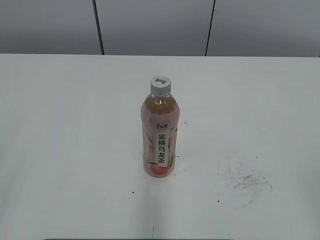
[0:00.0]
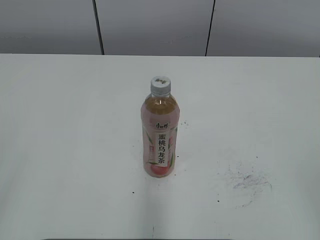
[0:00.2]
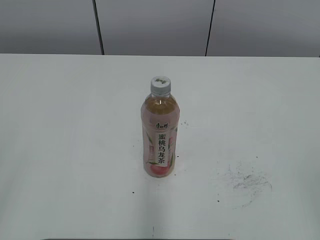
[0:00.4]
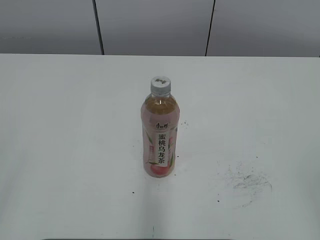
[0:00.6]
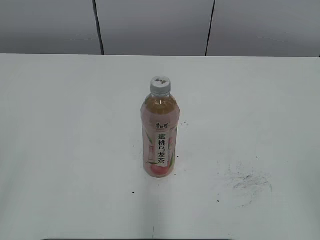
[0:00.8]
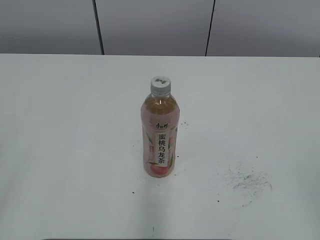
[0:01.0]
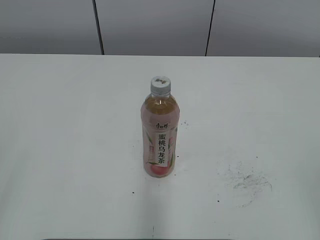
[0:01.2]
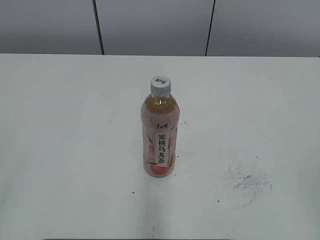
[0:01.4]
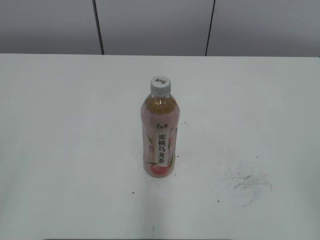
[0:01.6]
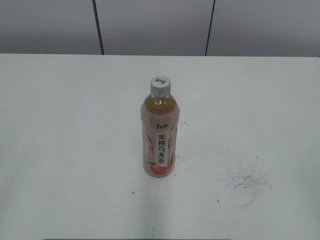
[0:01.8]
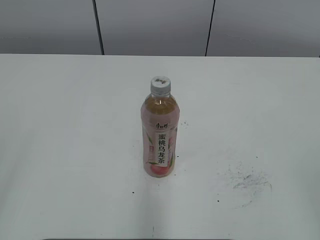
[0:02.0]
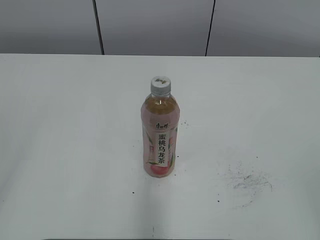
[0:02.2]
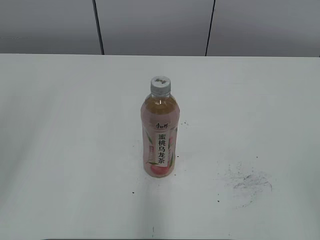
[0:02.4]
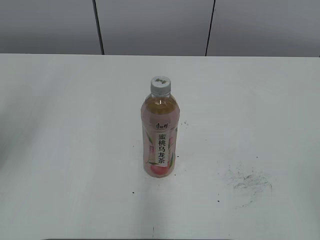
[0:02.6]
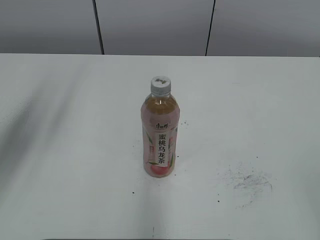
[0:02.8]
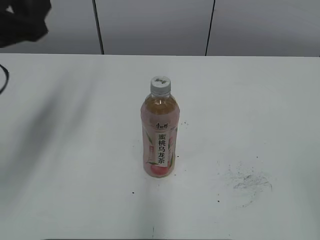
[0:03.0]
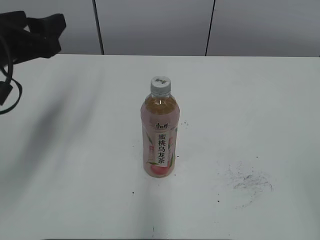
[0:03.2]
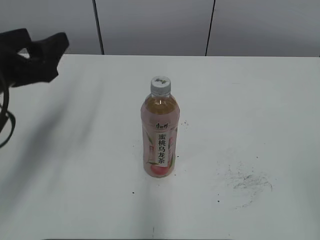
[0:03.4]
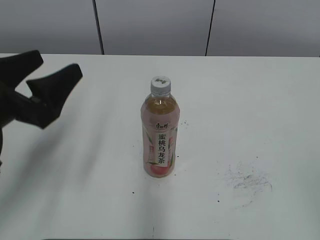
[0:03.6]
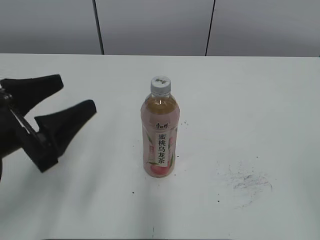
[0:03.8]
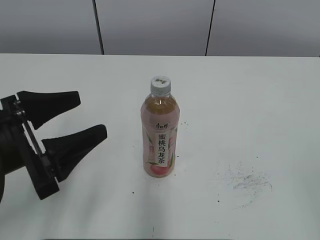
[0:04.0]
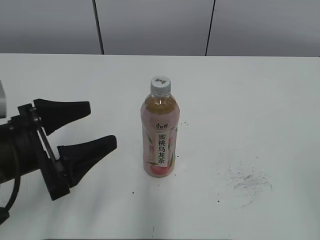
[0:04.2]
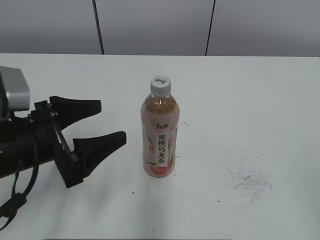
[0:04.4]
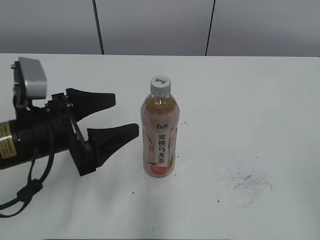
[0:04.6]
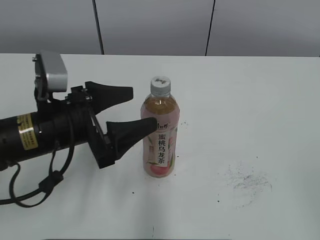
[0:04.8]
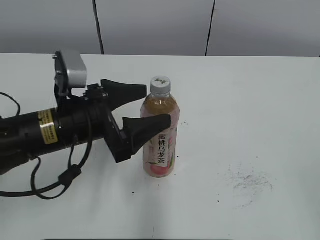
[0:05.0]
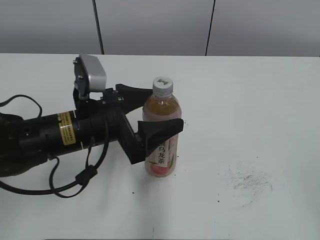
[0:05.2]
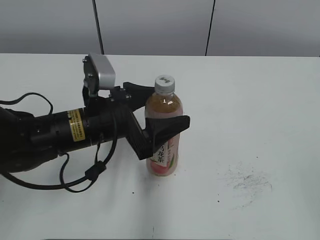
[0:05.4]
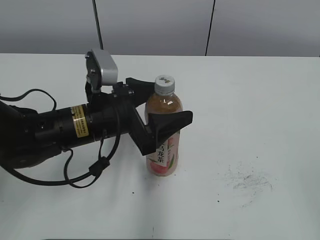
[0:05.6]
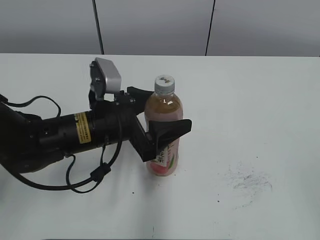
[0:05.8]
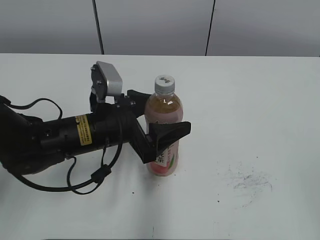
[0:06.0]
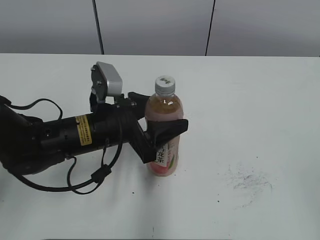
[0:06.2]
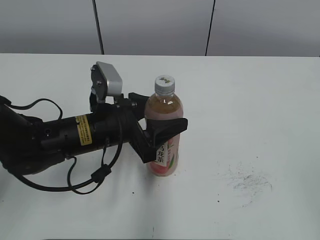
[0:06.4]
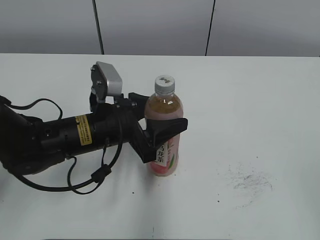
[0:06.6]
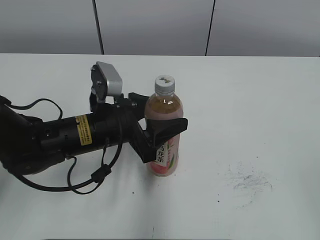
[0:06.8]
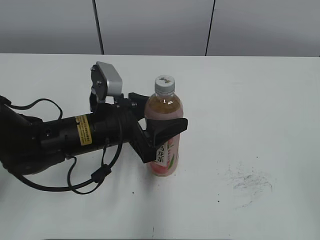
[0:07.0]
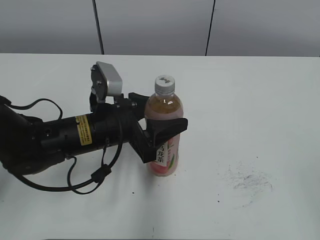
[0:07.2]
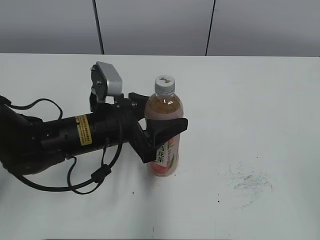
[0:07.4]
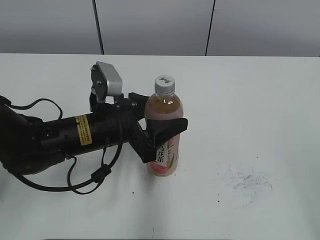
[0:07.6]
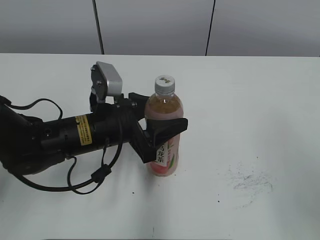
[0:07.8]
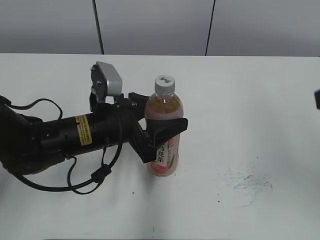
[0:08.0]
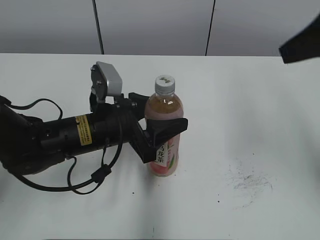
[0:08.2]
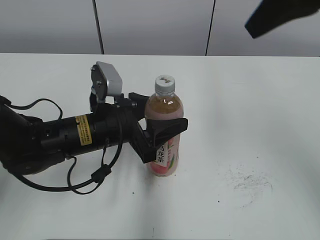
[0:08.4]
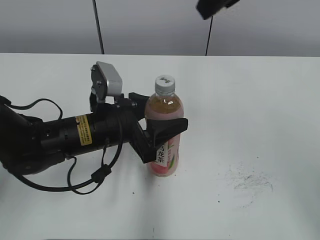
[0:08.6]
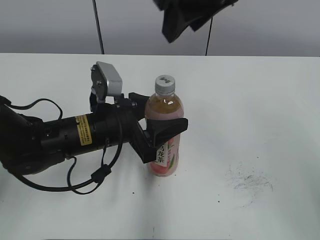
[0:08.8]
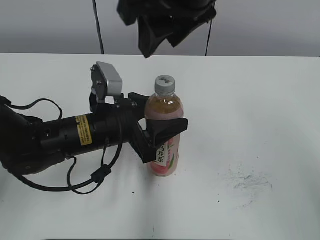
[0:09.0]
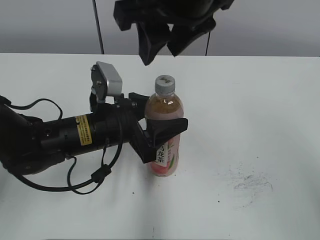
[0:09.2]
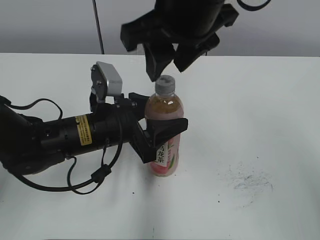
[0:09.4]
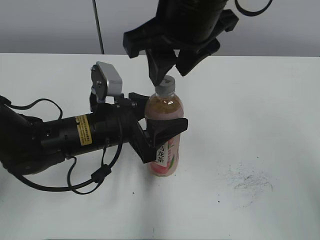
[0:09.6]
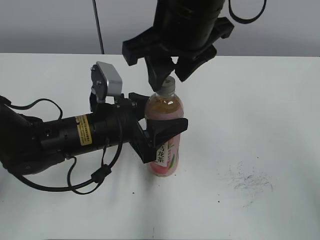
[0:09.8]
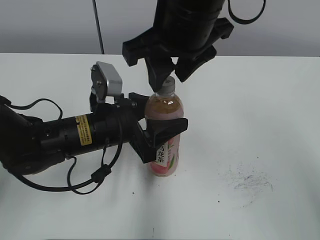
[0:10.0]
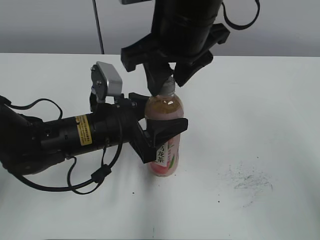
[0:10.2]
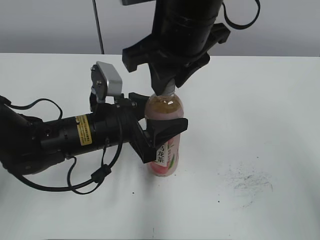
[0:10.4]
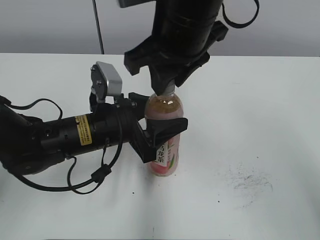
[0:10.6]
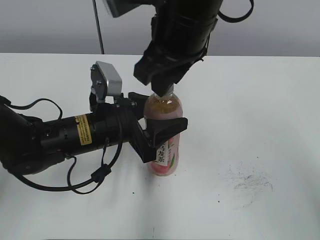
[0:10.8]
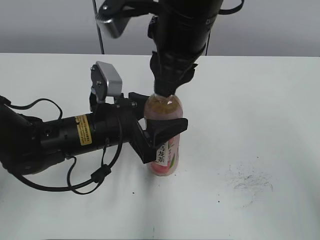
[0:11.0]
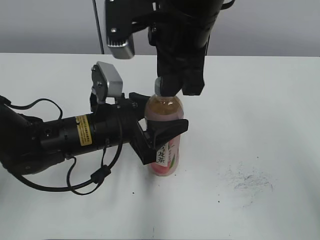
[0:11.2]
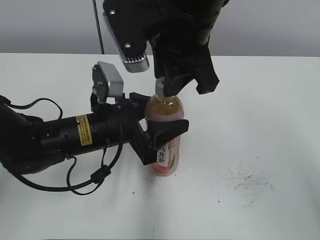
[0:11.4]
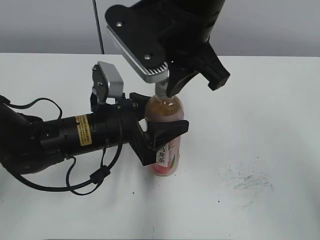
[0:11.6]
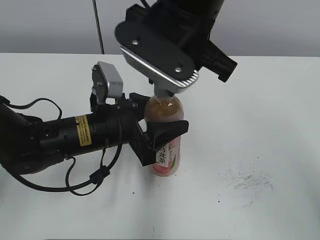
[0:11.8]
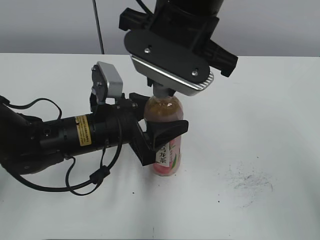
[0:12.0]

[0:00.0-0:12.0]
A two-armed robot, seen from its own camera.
Step, 0:00.0 to 0:06.6: Grab the Peach Oolong Tea with the left hand.
0:01.6 to 0:03.0: The left gripper travels forward by some 25 cm.
0:03.0 to 0:04.4: The left gripper travels downward, backward and to the right by some 15 cm, and opens up.
0:04.4 to 0:06.0: The left gripper moves to the right and forward, roughly 10 cm.
0:06.0 to 0:07.6: The left gripper closes up.
0:07.6 to 0:09.0: The right gripper moves forward and to the left, about 35 cm.
0:09.0 to 0:10.4: The right gripper is displaced downward by approximately 5 cm, and closes.

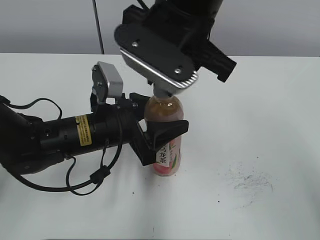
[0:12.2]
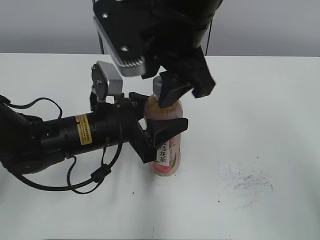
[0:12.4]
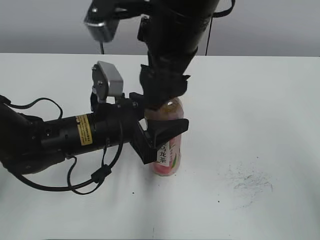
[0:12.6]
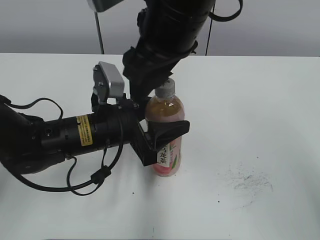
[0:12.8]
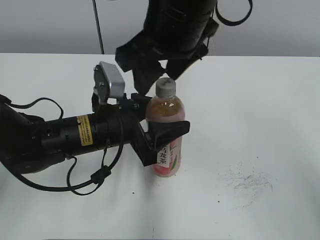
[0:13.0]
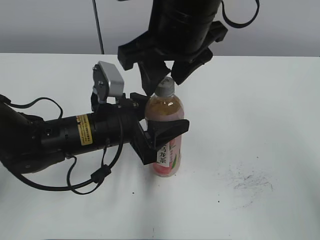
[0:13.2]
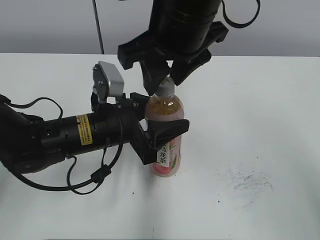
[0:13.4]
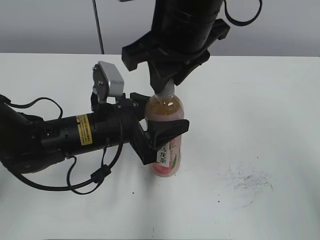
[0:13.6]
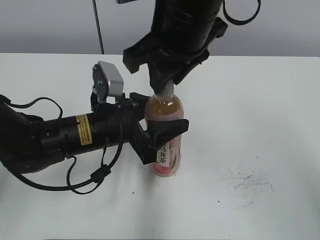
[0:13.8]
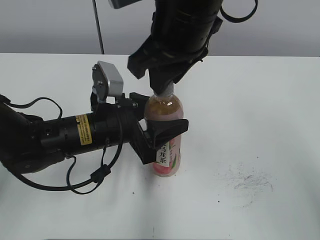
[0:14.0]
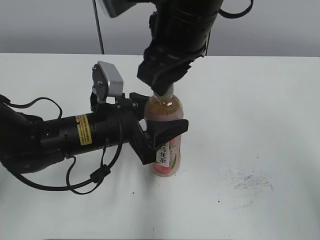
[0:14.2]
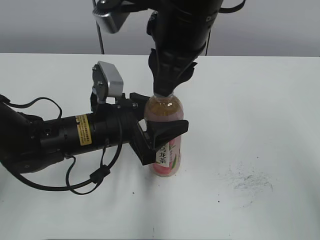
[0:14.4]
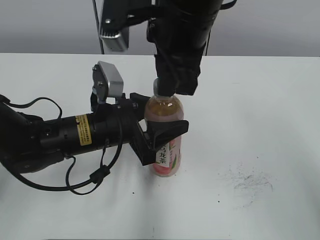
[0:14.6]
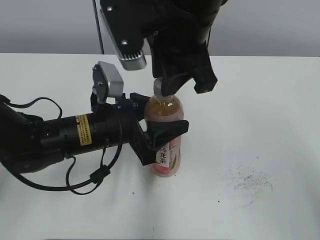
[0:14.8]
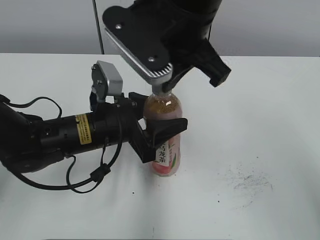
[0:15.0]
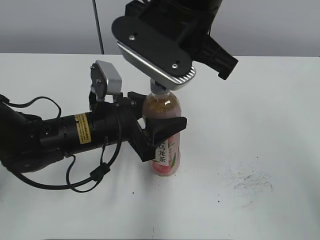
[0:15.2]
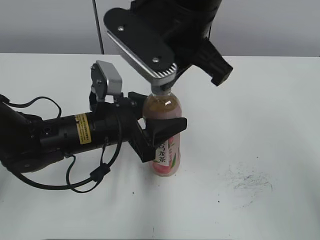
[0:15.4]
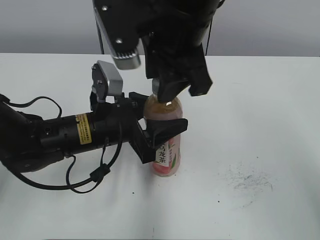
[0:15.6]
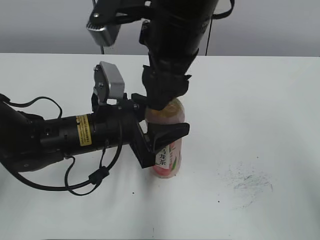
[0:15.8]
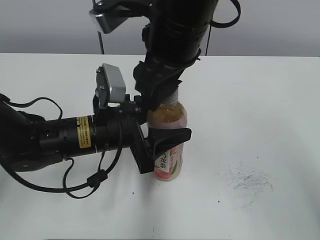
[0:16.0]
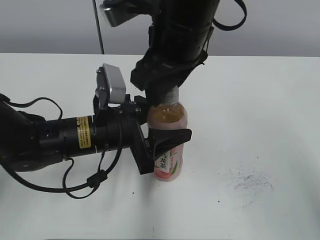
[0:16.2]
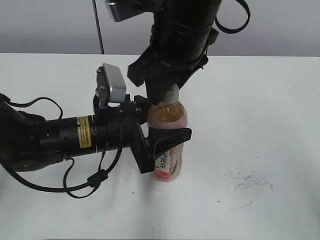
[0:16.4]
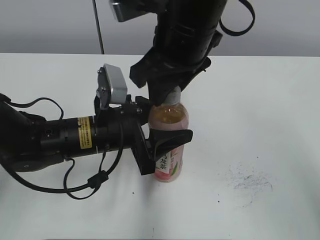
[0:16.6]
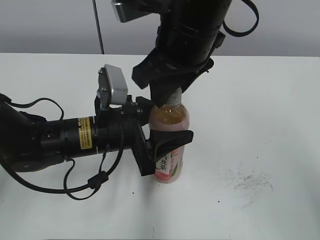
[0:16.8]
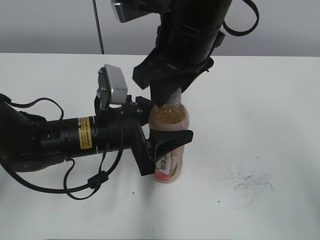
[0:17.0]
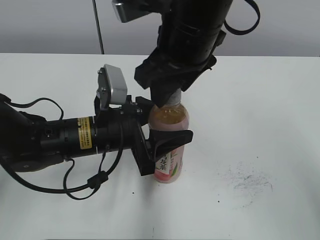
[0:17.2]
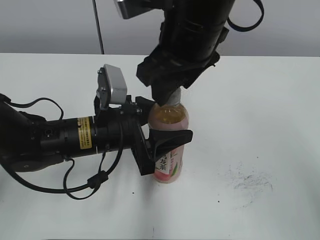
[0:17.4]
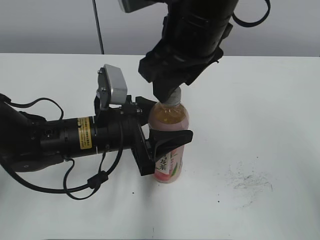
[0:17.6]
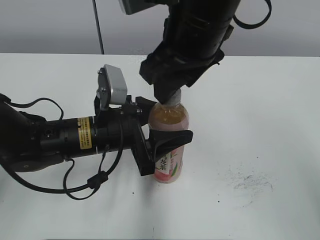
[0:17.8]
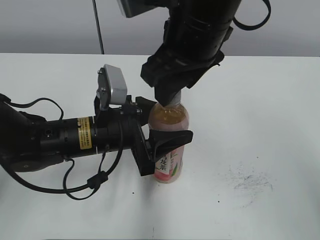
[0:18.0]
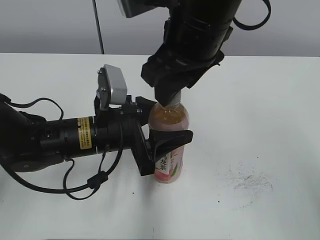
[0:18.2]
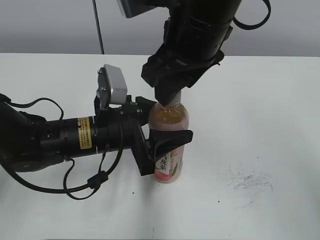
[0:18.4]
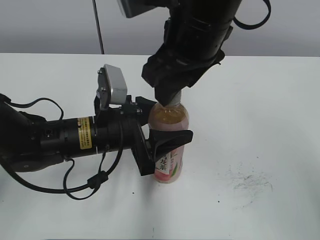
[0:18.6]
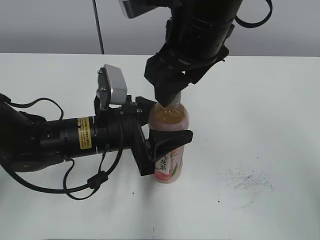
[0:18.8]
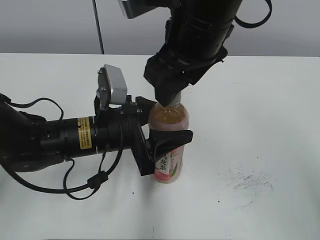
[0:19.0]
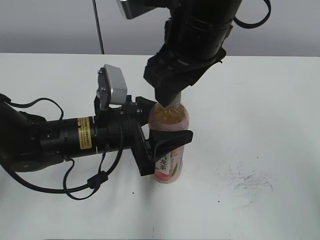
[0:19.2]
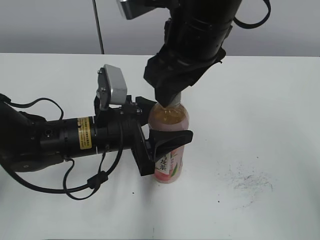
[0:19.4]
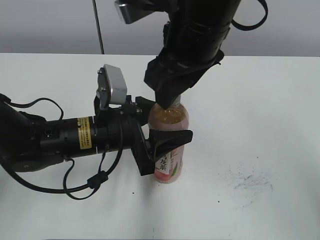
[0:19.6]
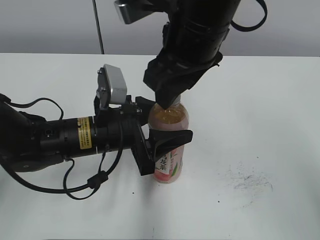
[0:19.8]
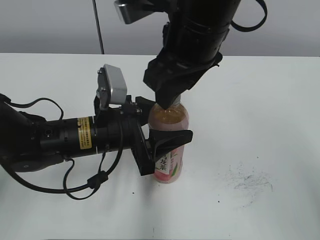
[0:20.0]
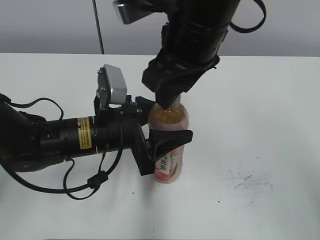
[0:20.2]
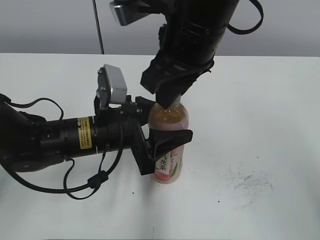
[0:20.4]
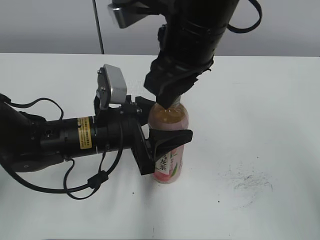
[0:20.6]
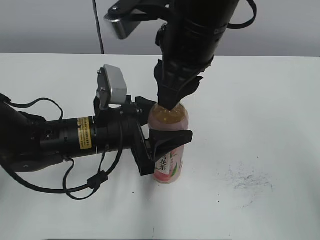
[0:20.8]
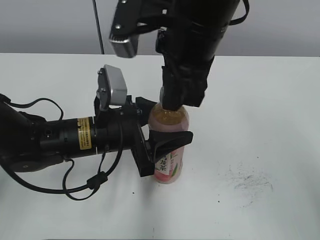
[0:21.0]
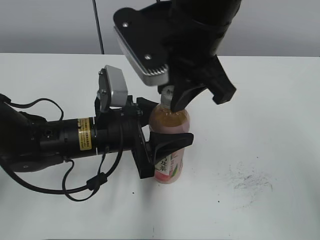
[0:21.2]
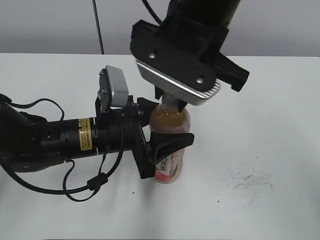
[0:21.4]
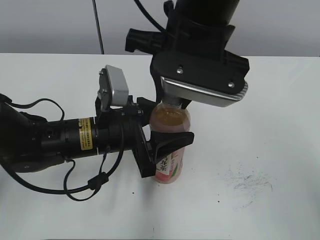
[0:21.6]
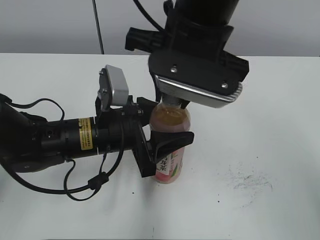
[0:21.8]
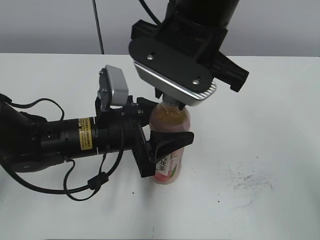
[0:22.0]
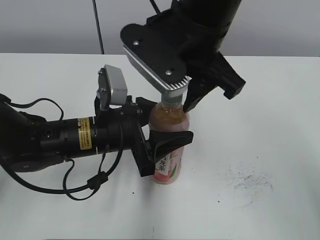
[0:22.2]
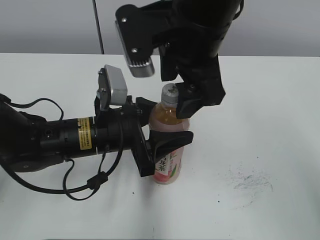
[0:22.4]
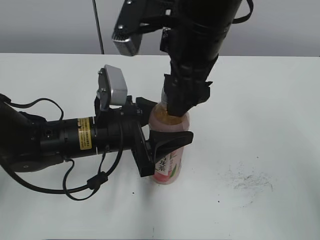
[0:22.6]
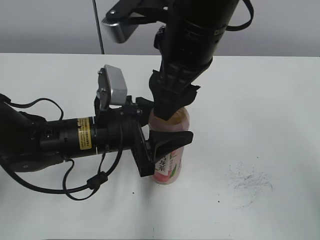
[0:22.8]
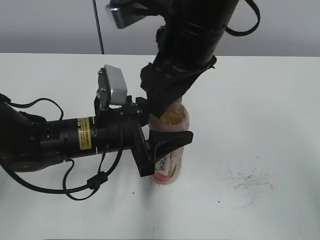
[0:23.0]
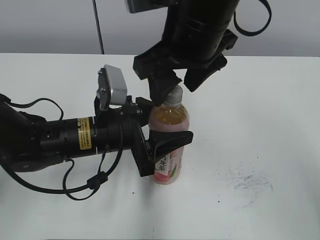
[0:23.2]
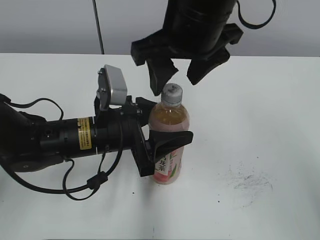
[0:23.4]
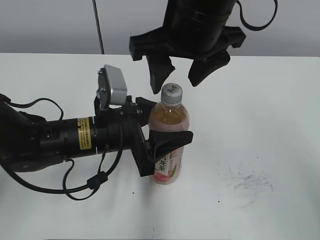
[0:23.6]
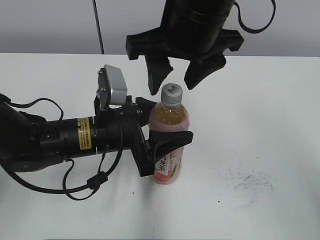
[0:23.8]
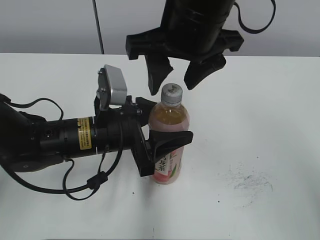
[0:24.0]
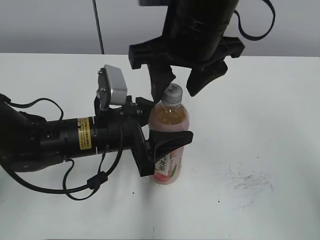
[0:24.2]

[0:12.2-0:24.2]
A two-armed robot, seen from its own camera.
0:12.2 to 0:13.8: The right gripper opens, then closes once more.
0:15.2 to 0:16.6: The right gripper opens up.
0:16.6 to 0:18.2: There are only small adjustments of the grippers.
0:18.2 to 0:19.8: Both grippers stay about where they are.
0:19.8 to 0:21.2: The right gripper closes up.
0:21.2 to 0:22.6: The right gripper opens up.
